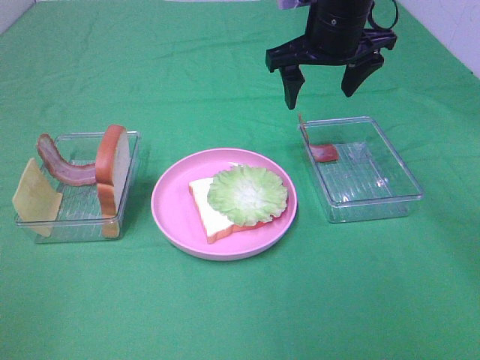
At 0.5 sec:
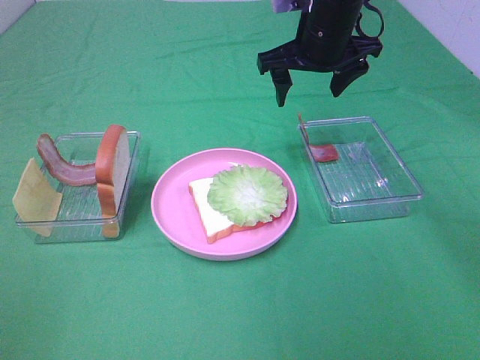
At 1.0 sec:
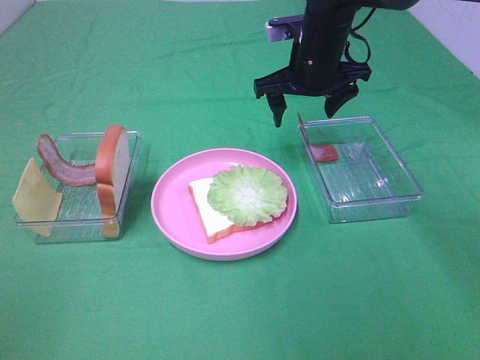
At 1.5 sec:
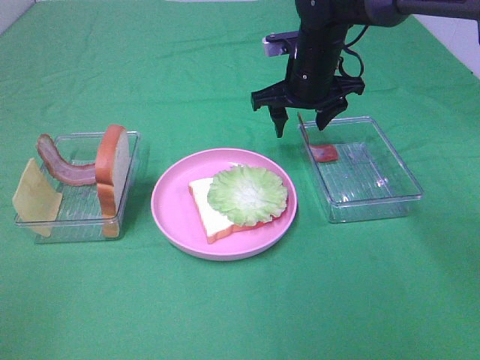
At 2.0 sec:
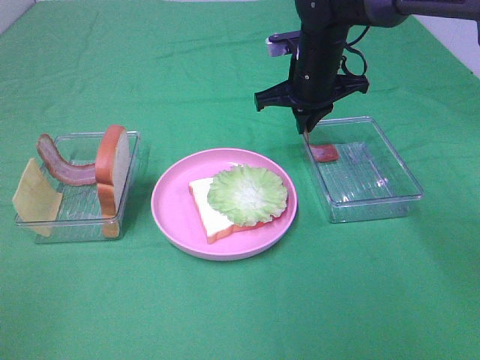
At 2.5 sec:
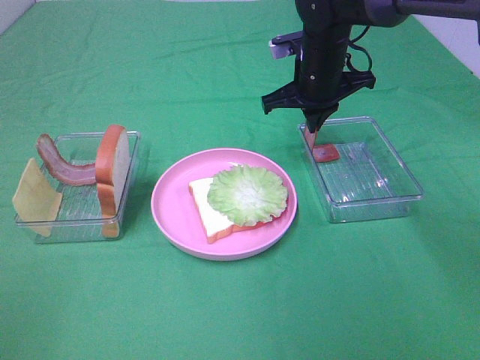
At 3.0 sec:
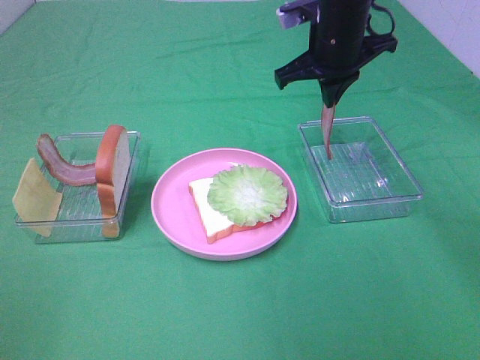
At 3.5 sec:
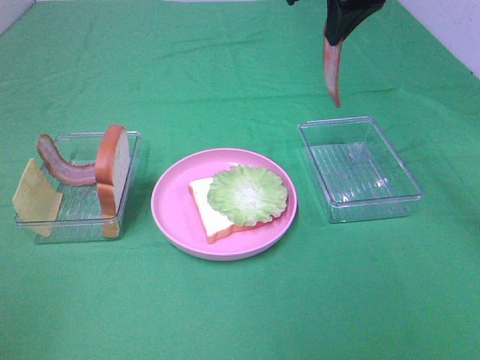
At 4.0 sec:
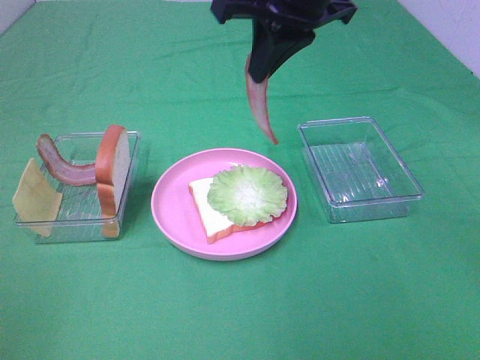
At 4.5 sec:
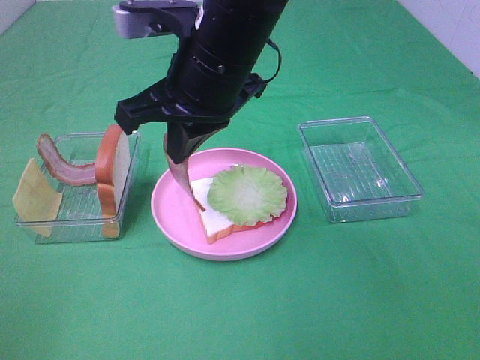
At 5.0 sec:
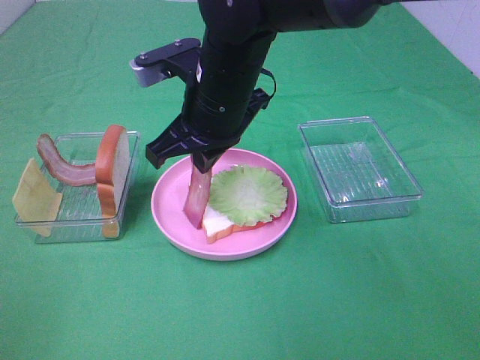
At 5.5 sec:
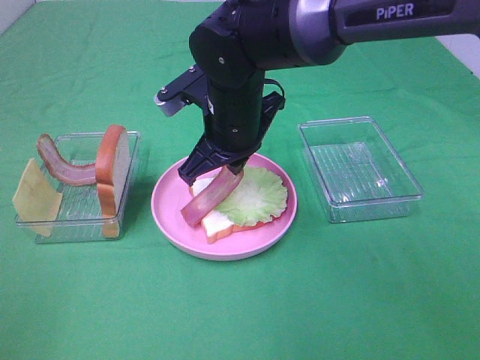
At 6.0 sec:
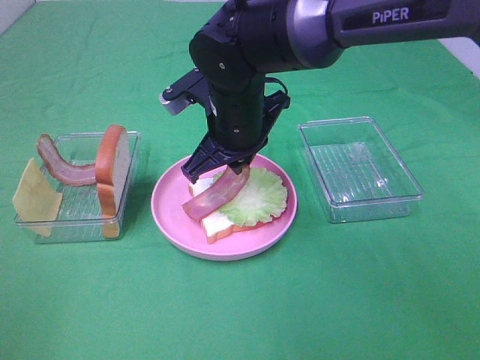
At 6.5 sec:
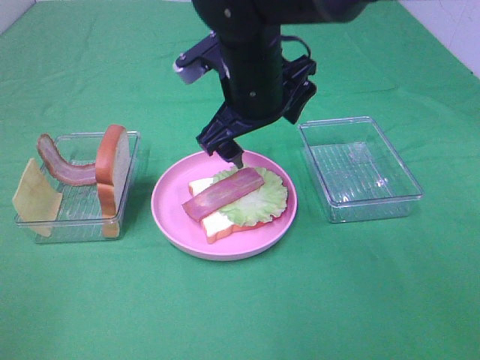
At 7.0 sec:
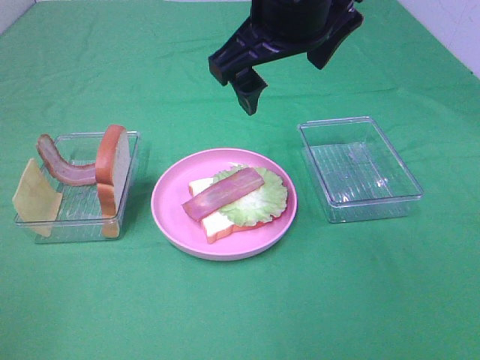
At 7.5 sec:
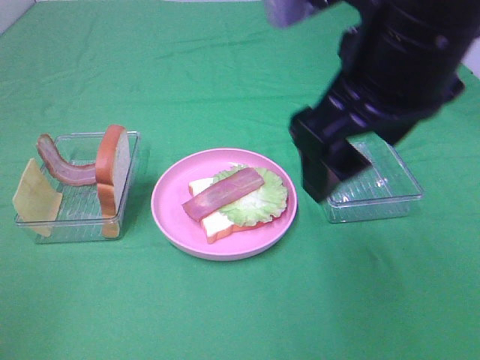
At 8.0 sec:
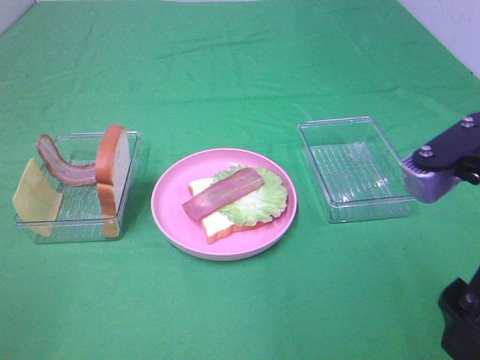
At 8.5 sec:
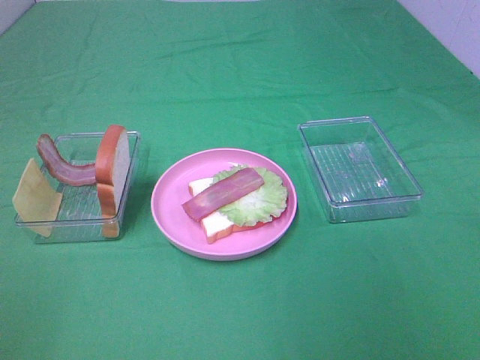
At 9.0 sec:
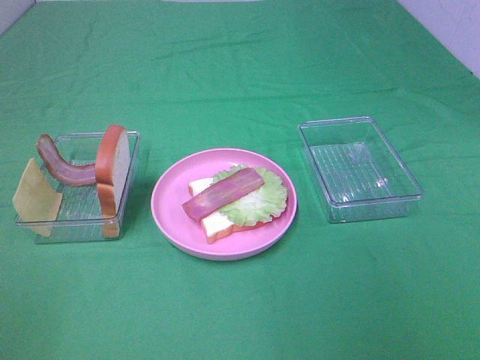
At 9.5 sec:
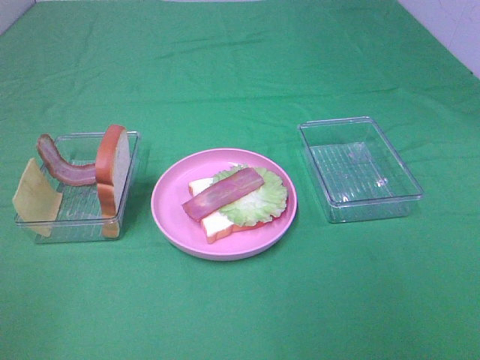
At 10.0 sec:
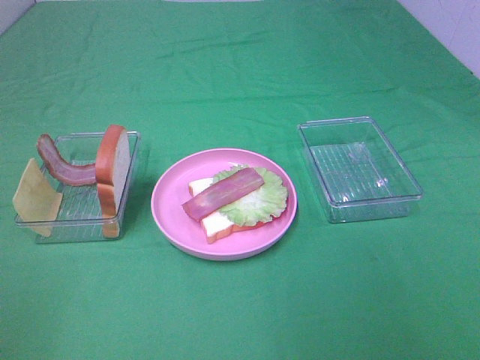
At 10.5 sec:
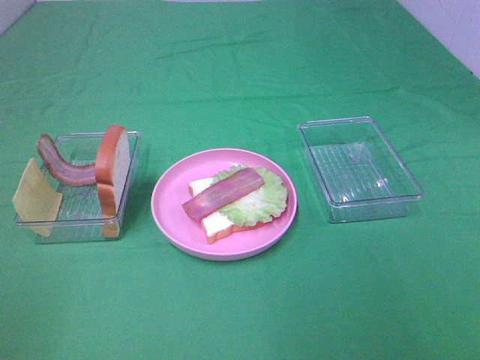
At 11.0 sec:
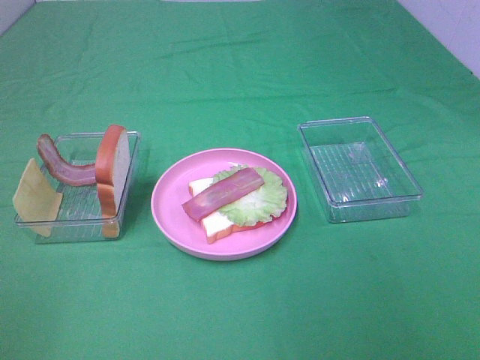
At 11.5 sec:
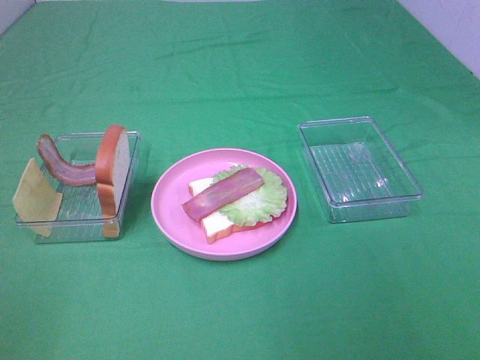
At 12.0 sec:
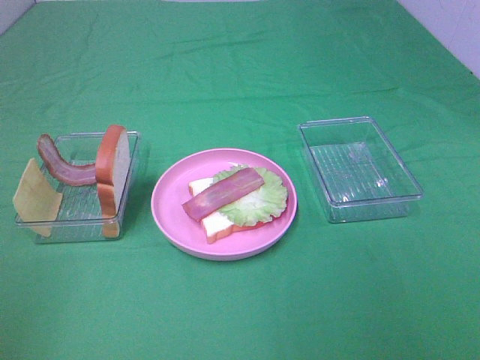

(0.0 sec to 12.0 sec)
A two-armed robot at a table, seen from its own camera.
Task of the whole recording: Make sandwiches.
Step, 0.0 sec - 2.0 sec: Right hand:grab the bacon.
Step, 2.5 sec - 6.0 sec: Right hand:place bacon on lettuce slice.
0.0 sec - 2.0 sec: The right gripper heads downward, covering roughly 10 cm, and closes its fingers.
2.0 sec - 4.0 sec: The right gripper heads upward and backward, covering some 20 cm.
4.0 sec - 6.0 sec: The right gripper shifts some 15 cm downward and to the left.
6.0 sec - 8.0 sec: The right gripper travels backward, to the right and upward by roughly 30 cm, and opens.
8.0 sec - 10.0 sec: The right gripper moves backward and to the right, roughly 15 cm.

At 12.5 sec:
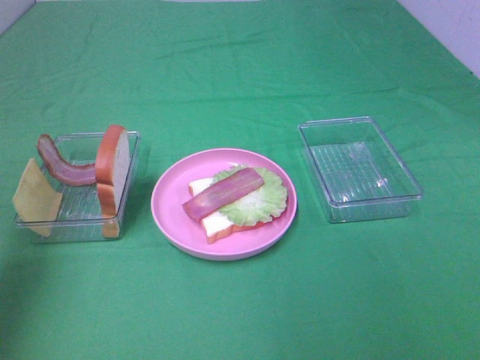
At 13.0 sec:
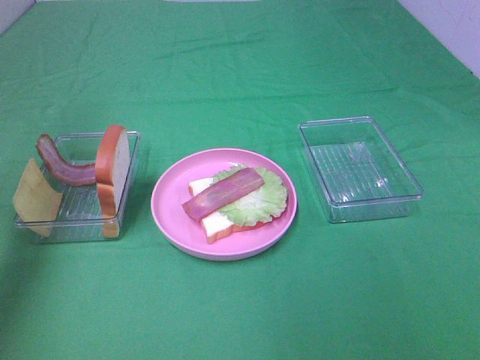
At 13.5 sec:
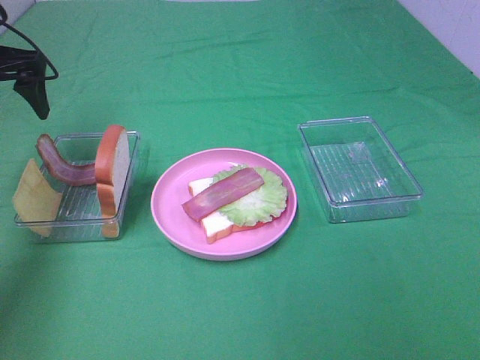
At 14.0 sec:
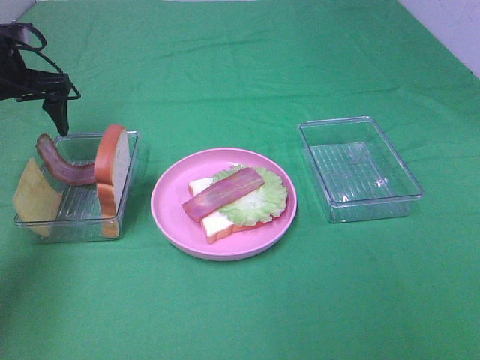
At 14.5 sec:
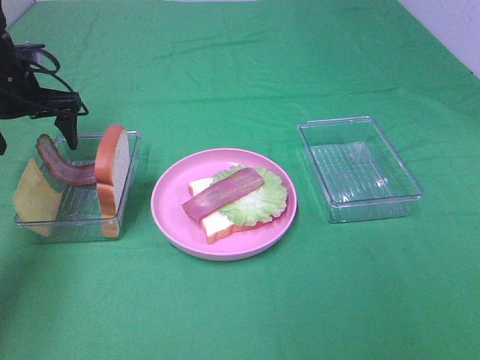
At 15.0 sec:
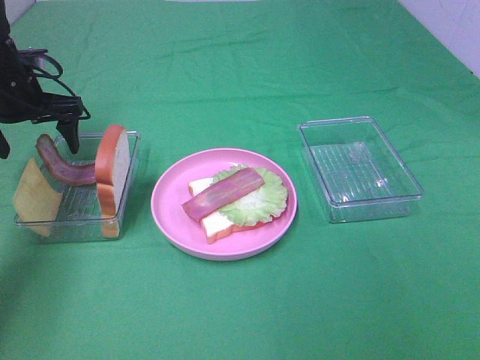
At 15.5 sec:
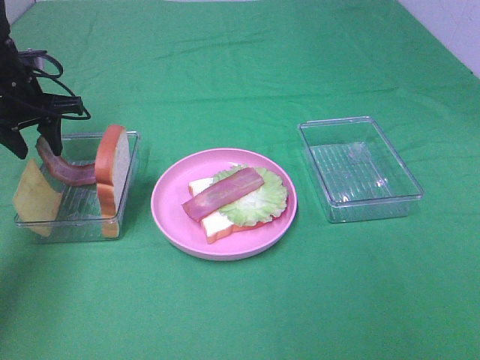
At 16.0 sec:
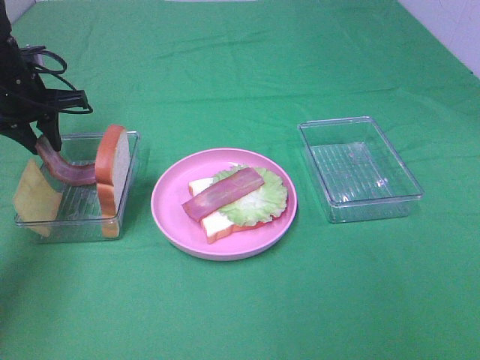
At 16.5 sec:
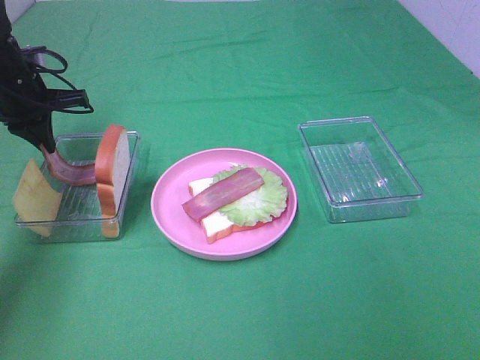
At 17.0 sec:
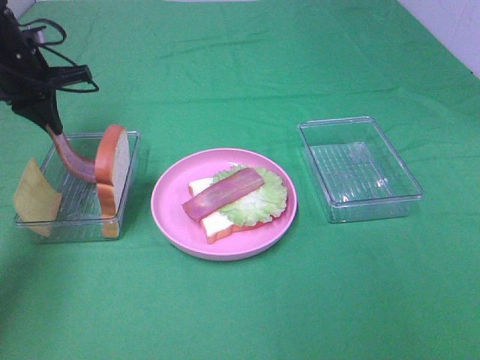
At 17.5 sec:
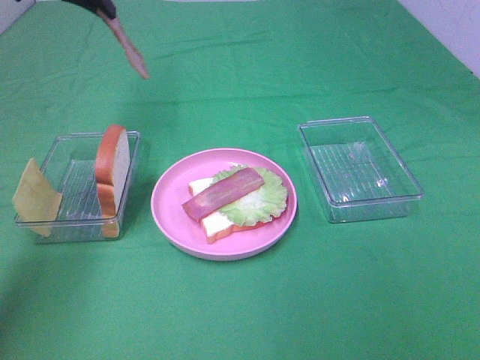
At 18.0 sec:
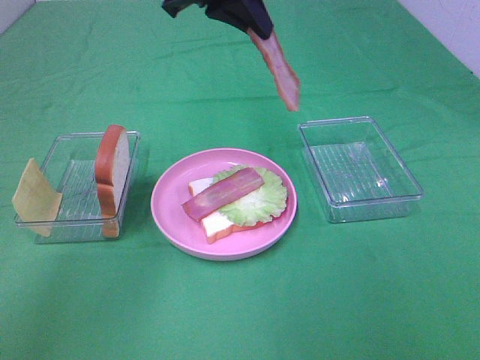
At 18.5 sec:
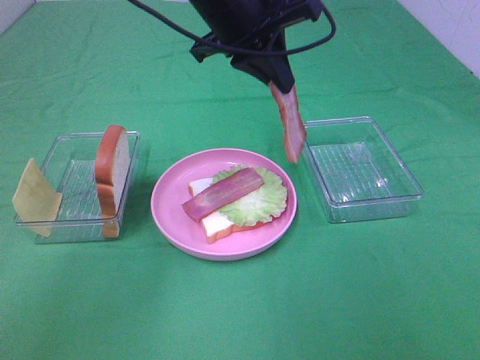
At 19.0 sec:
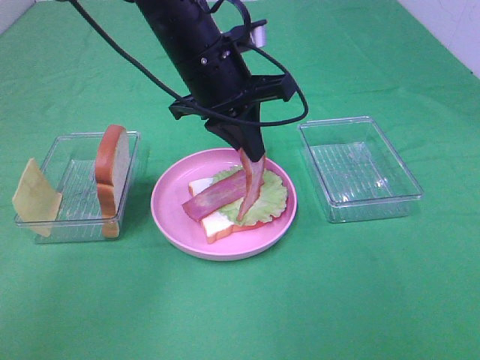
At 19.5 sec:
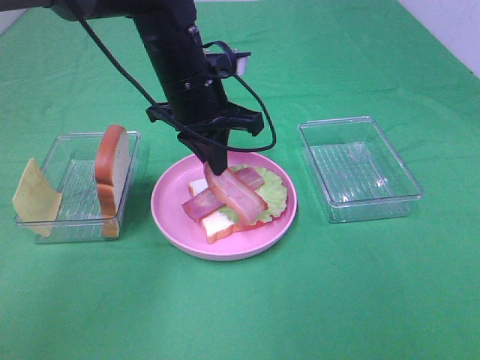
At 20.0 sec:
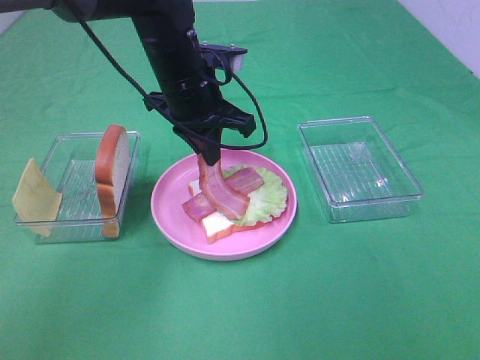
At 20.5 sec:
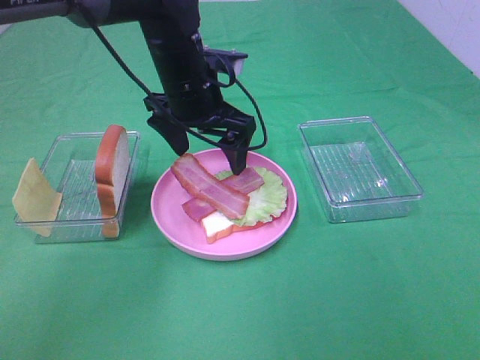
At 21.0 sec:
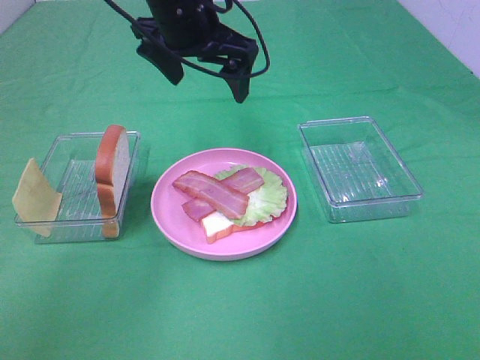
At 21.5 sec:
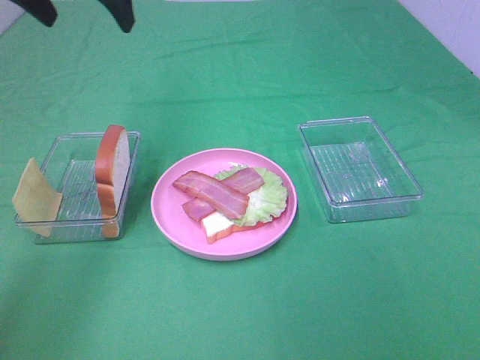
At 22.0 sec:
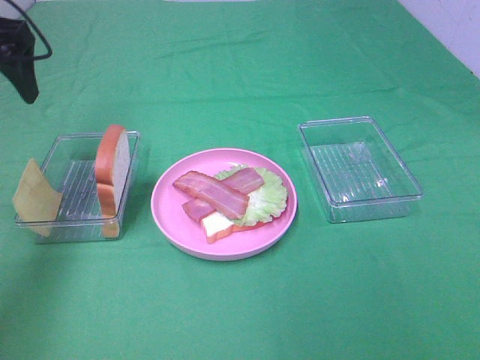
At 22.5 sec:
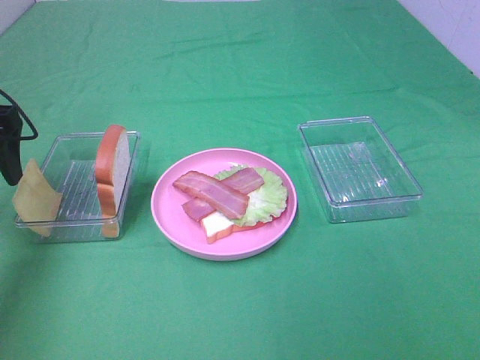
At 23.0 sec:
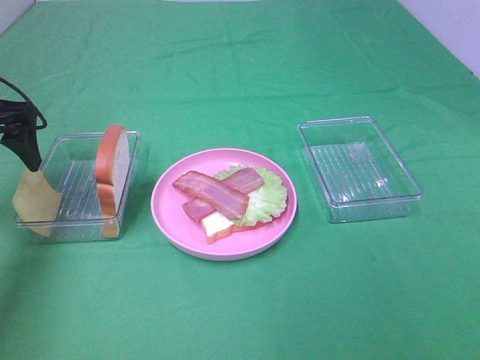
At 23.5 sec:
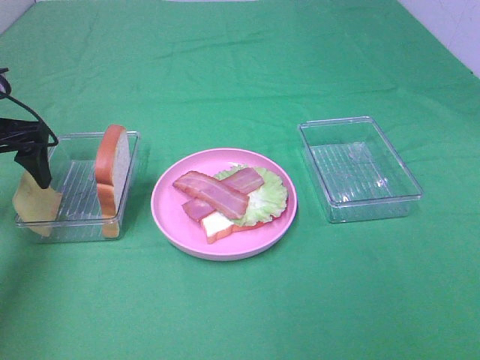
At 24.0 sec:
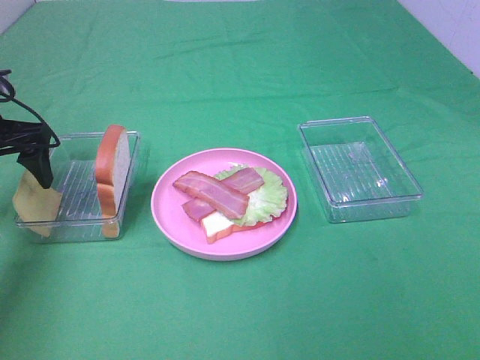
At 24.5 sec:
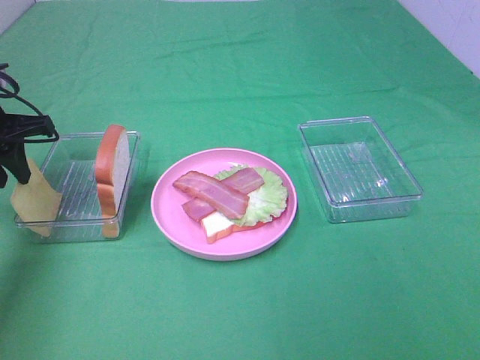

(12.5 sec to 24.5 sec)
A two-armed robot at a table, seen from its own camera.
Task of the whole recording: Make sandwiches.
Step, 12.5 sec - 16.5 sec: Left hand:grab the bacon.
Step, 17.0 sec - 20.5 sec: Left hand:place bacon on bacon.
12.5 sec - 14.5 sec: The left gripper goes some 30 cm forward and downward.
14.5 sec - 16.5 sec: The left gripper closes.
16.5 sec - 18.5 sec: The left gripper is displaced to the right and upward by approximately 30 cm.
18.5 sec - 20.5 sec: The left gripper moves downward, some 10 cm, and opens its fingers.
20.5 sec - 22.5 sec: The left gripper goes approximately 25 cm to the left.
22.5 sec - 24.5 sec: The left gripper changes place by some 5 cm, and closes its fingers.

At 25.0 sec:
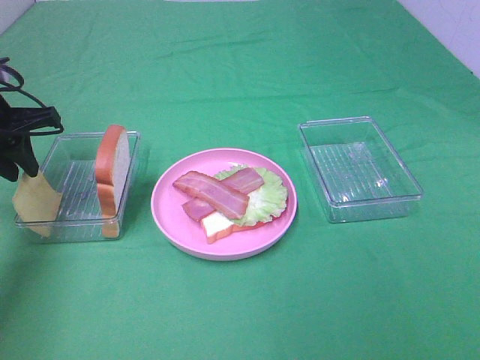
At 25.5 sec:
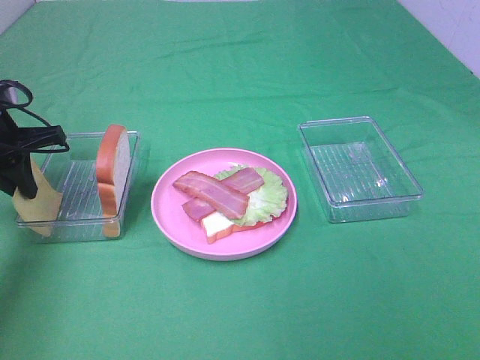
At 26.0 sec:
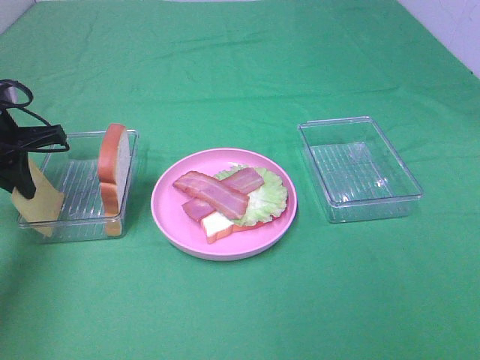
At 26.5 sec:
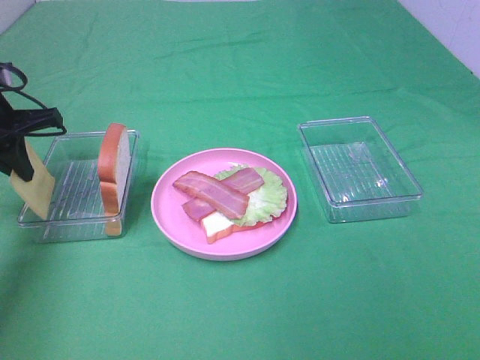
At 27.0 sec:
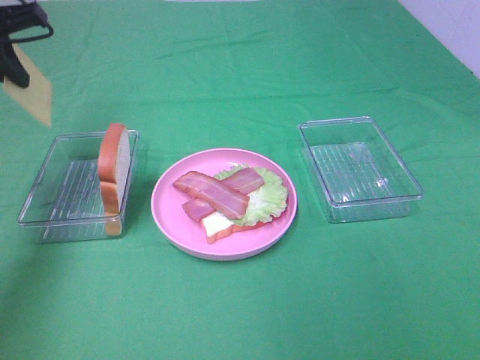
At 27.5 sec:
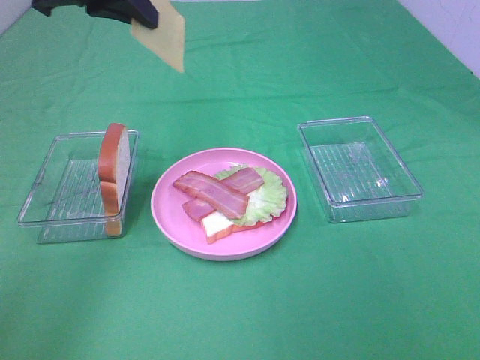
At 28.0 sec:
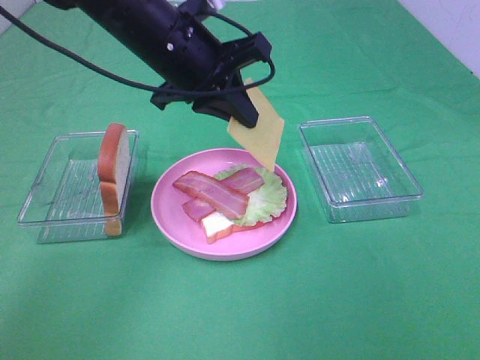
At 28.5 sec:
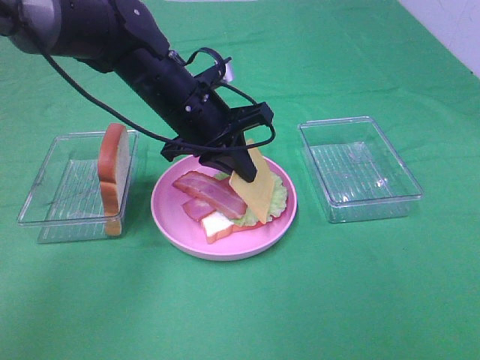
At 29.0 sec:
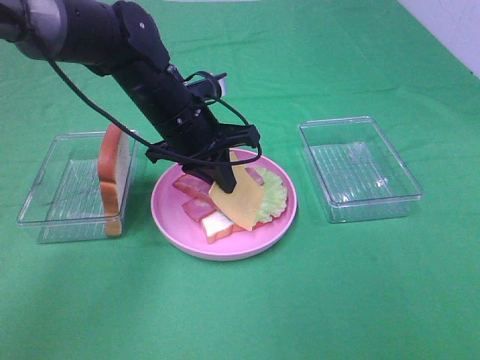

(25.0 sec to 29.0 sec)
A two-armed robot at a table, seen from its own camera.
Task of the whole recording: Make sandwiches.
25.0 sec - 27.0 sec: The left gripper moves upward, some 10 cm.
27.0 sec - 29.0 sec: The left gripper is displaced to the right and downward by roughly 25 cm.
